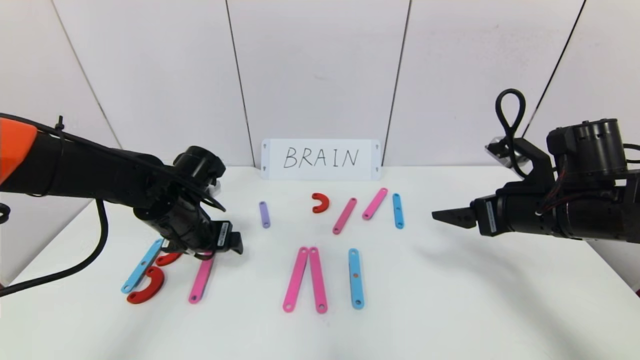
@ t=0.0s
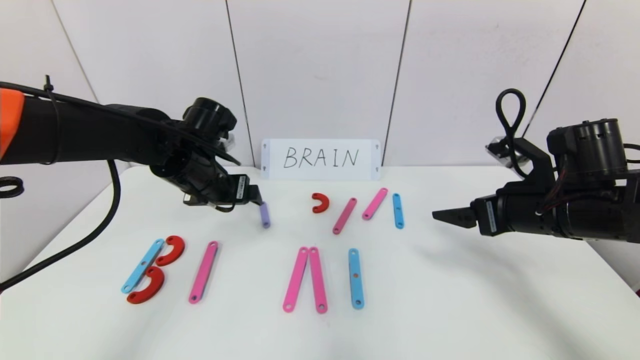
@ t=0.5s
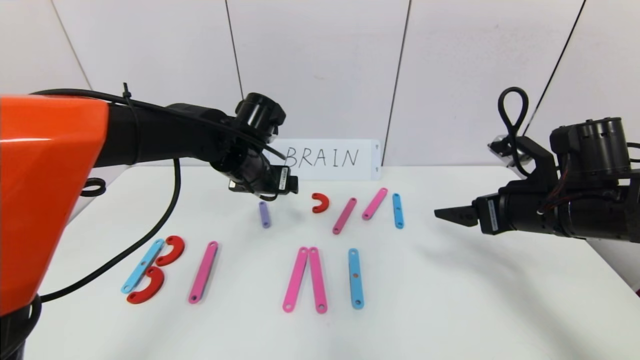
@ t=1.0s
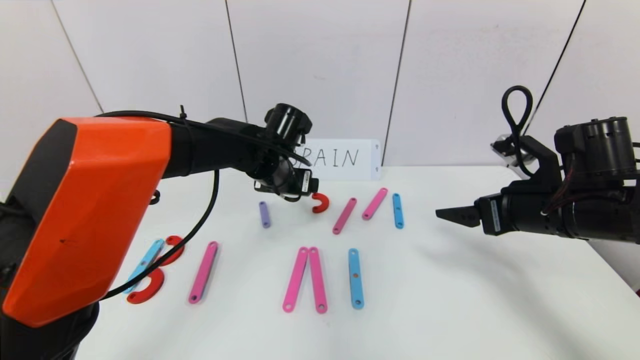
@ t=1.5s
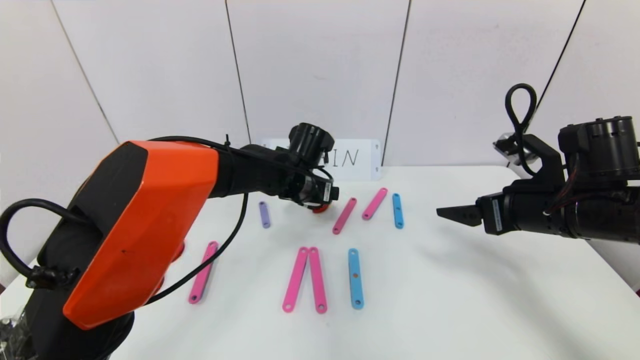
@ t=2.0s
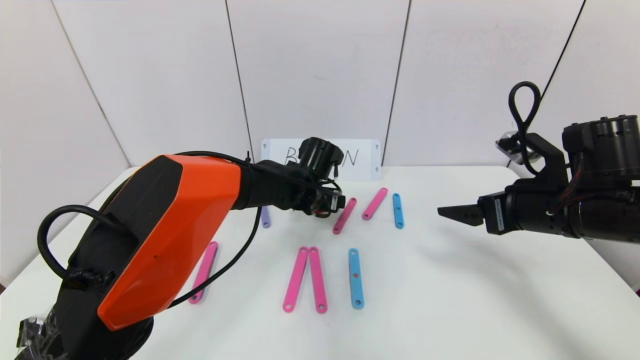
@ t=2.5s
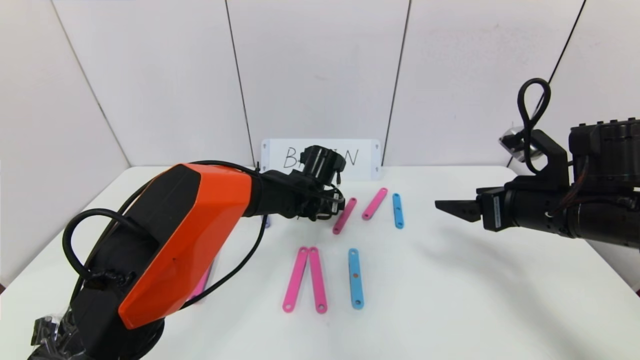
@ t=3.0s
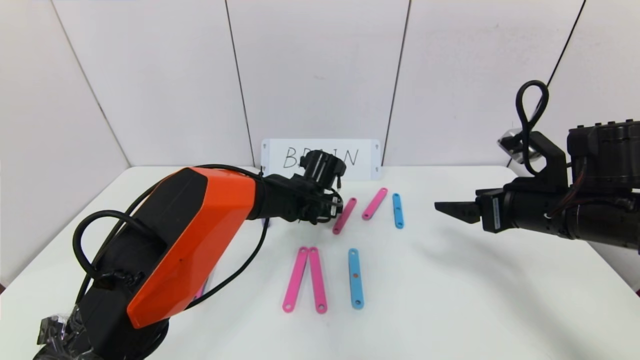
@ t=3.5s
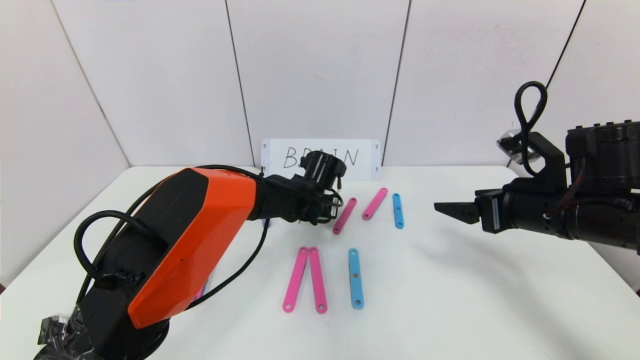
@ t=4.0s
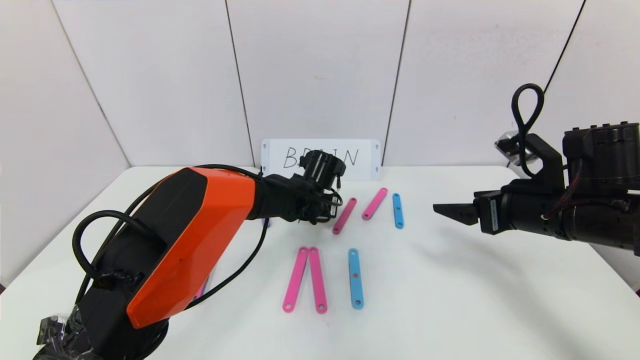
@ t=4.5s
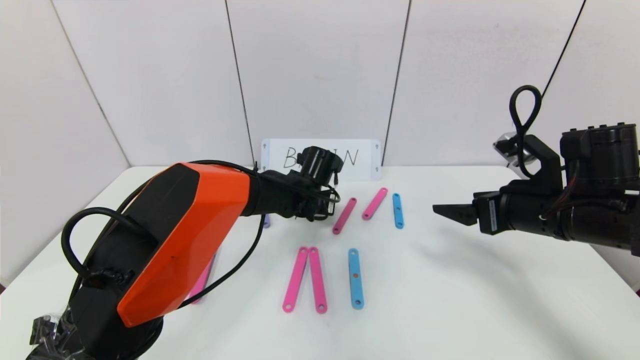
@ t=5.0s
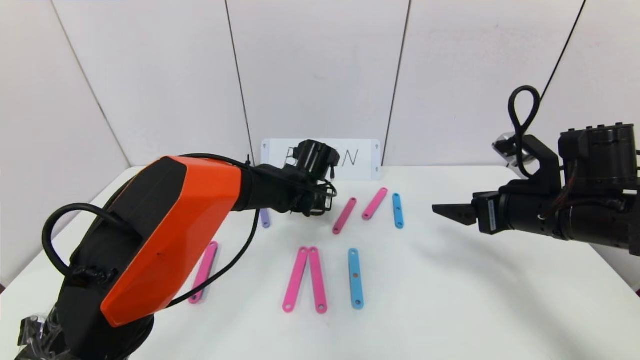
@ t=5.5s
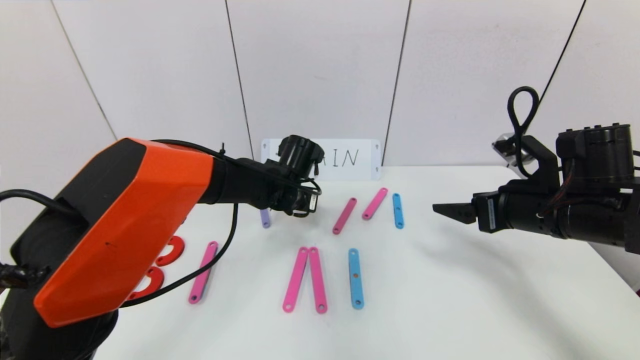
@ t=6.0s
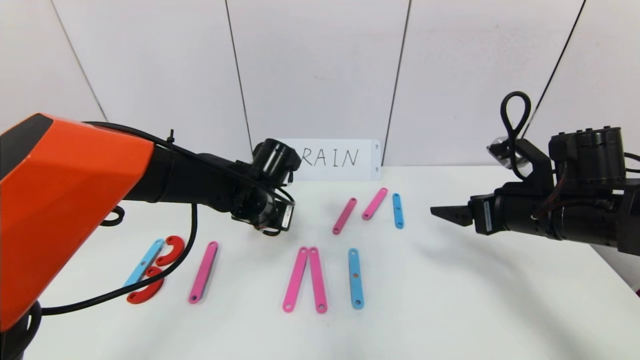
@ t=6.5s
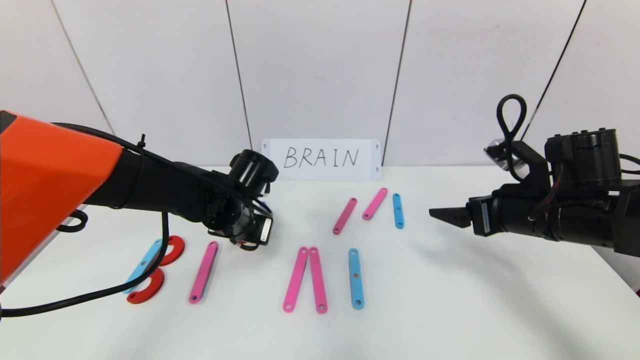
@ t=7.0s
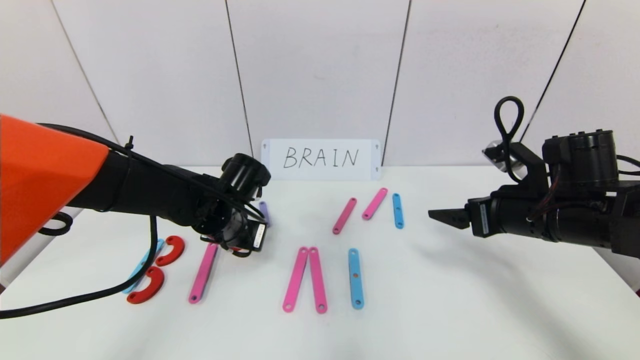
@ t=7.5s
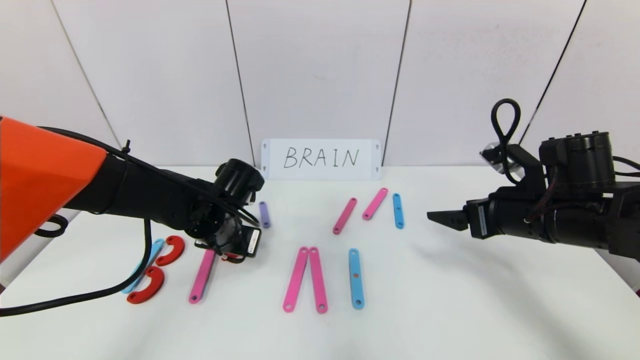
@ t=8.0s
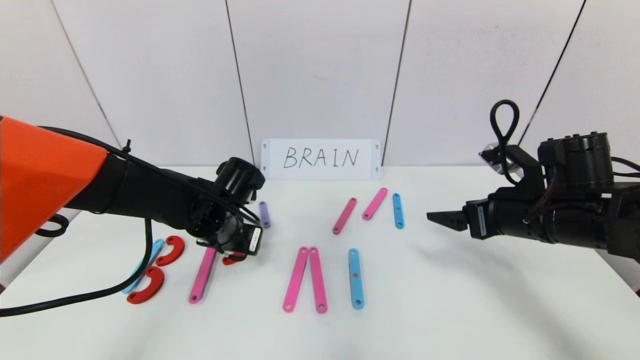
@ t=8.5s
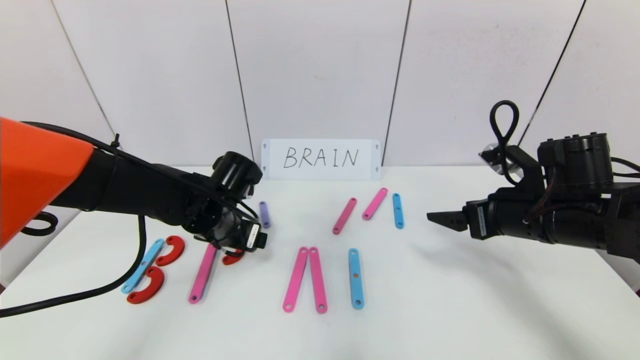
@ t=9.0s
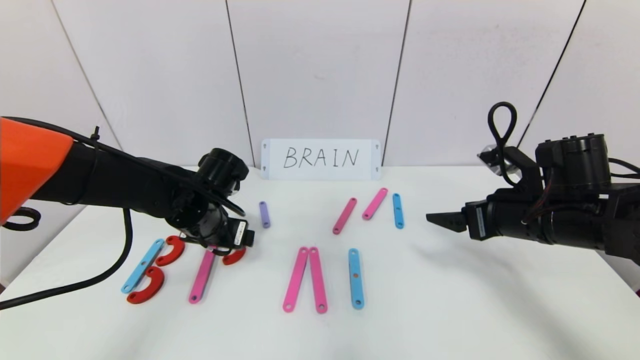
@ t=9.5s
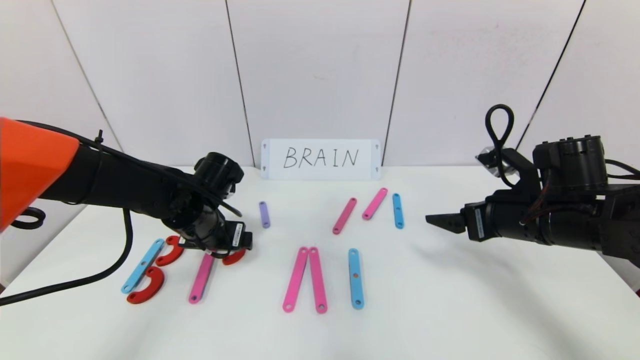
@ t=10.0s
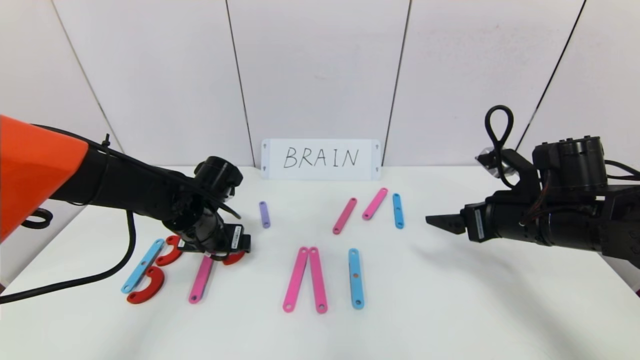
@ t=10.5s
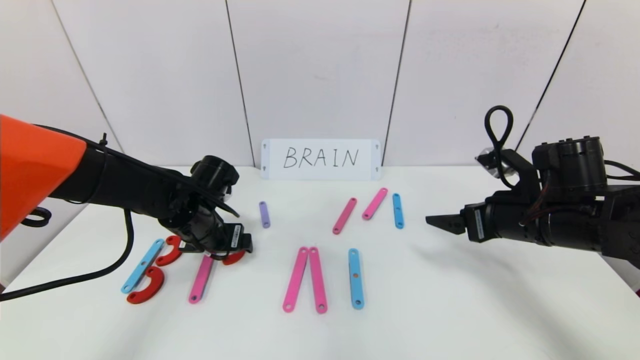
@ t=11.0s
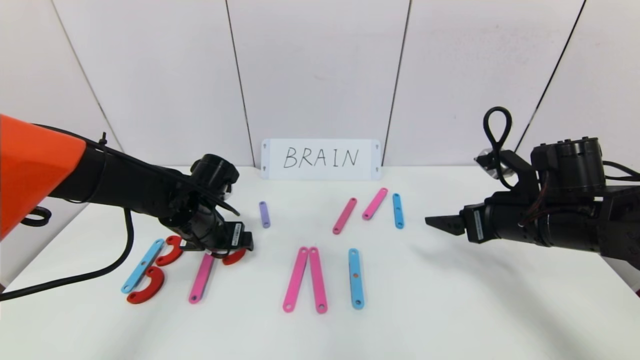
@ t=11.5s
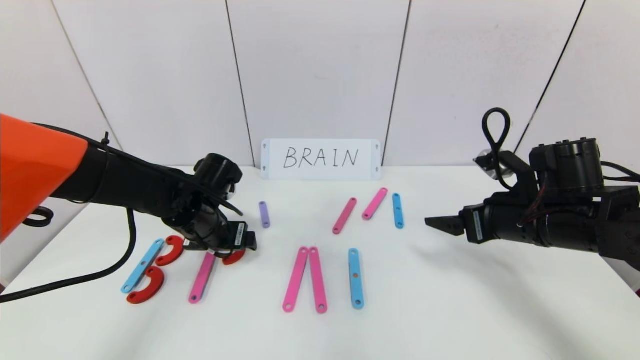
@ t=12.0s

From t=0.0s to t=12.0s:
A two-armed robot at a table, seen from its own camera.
Task of the whole recording: rearrange the word baai as brain.
From t=0.0s to t=2.0s: The left gripper goes some 20 cm to the right and forward.
From t=2.0s to t=4.0s: The left gripper moves downward, about 5 cm, and closes up.
From t=4.0s to t=6.0s: The left gripper shifts by about 5 cm.
From t=6.0s to t=8.0s: The left gripper shifts some 10 cm to the left and backward.
From t=8.0s to t=10.0s: The left gripper opens its fingers.
From t=10.0s to t=12.0s: Both grippers stay about where they are.

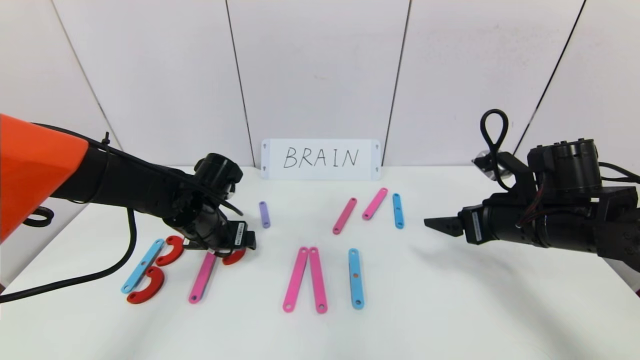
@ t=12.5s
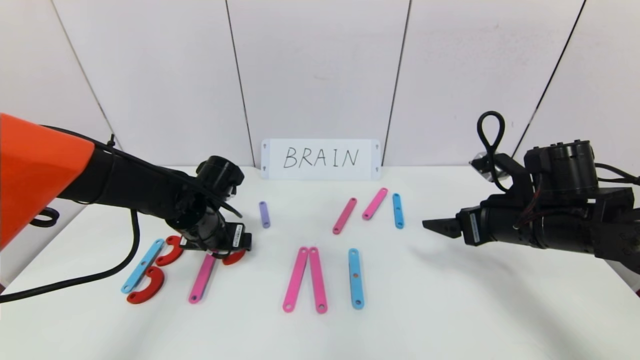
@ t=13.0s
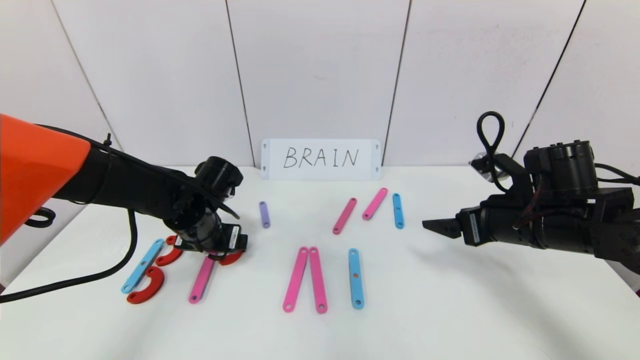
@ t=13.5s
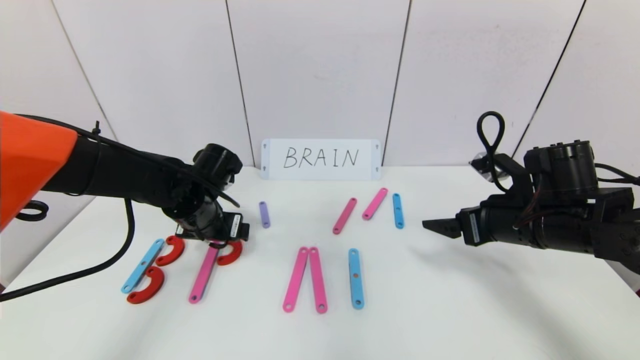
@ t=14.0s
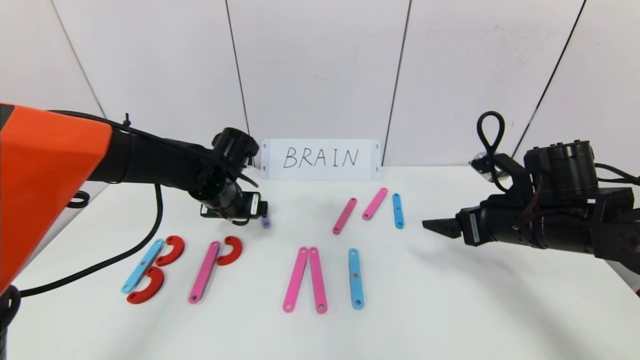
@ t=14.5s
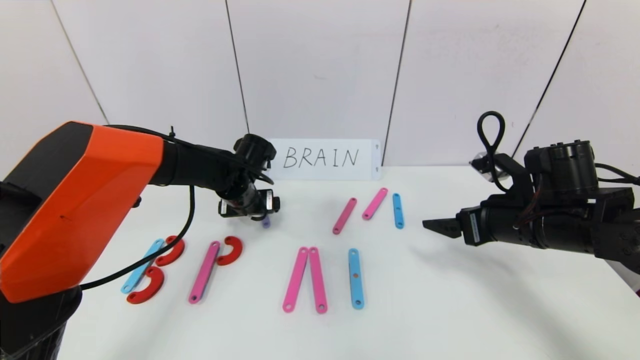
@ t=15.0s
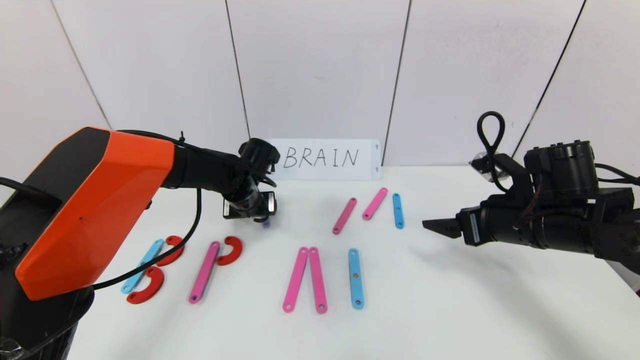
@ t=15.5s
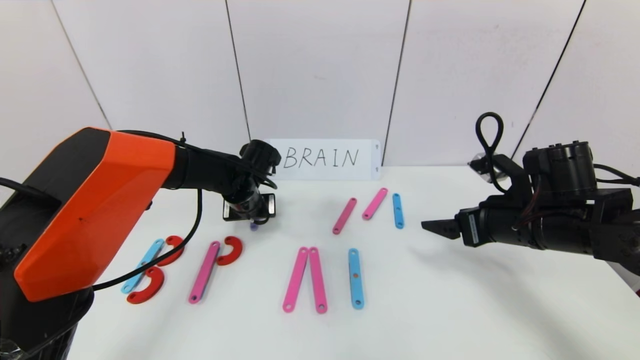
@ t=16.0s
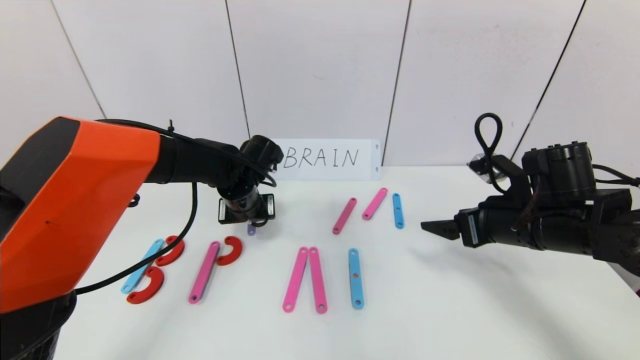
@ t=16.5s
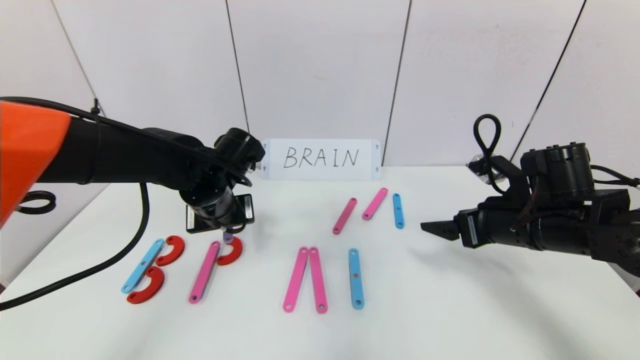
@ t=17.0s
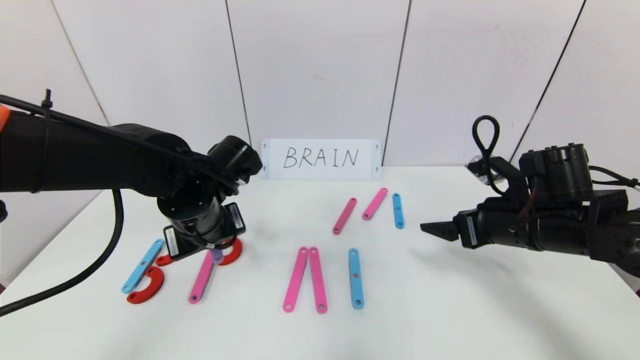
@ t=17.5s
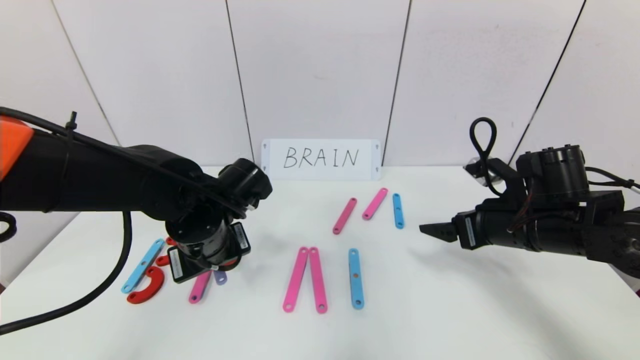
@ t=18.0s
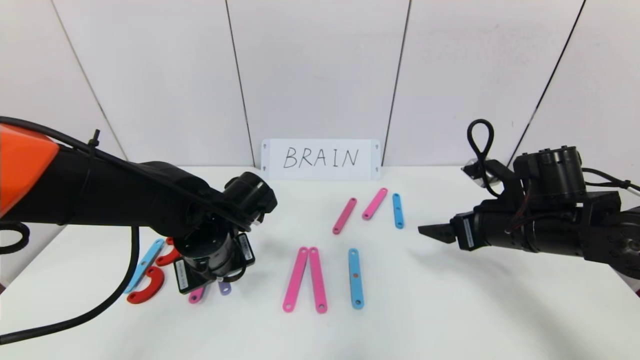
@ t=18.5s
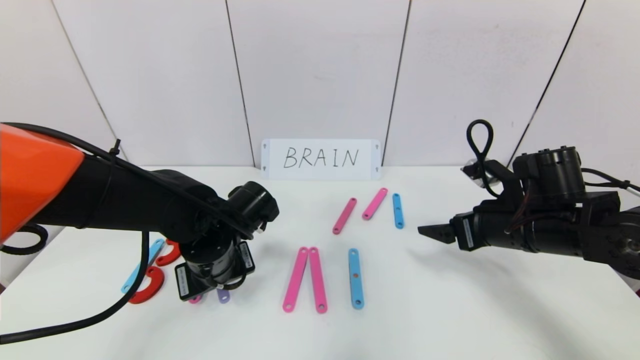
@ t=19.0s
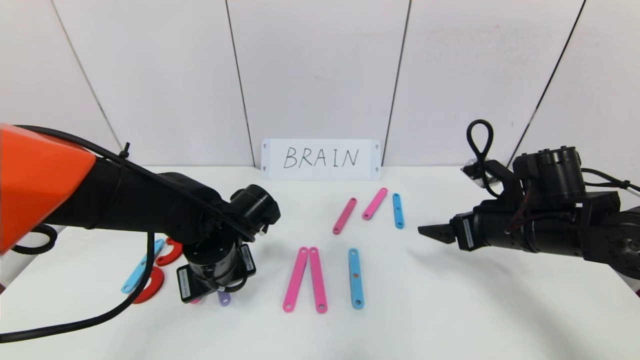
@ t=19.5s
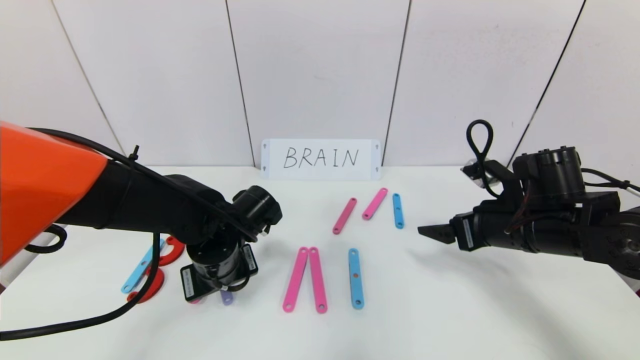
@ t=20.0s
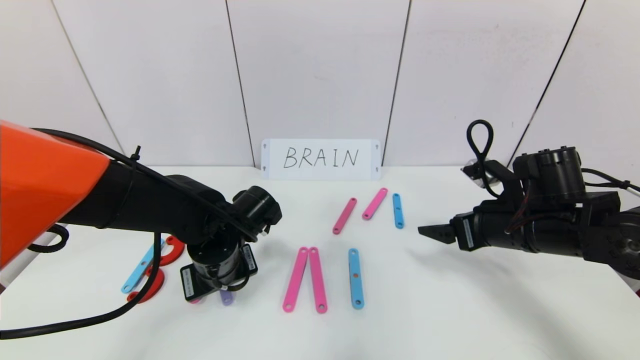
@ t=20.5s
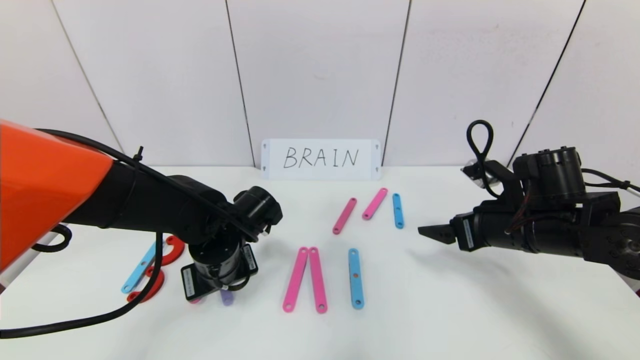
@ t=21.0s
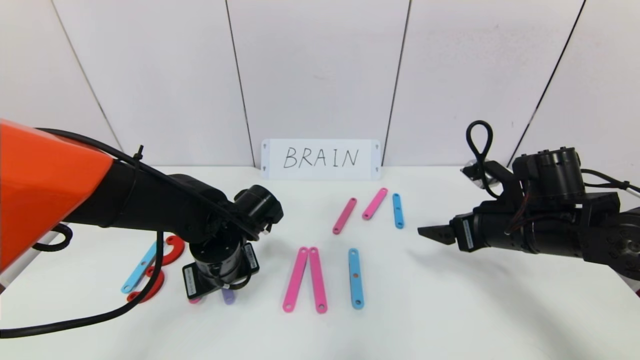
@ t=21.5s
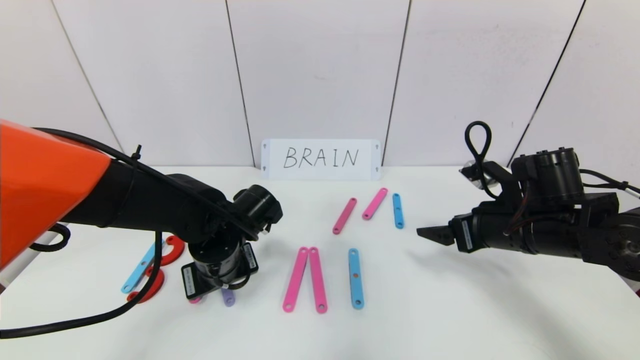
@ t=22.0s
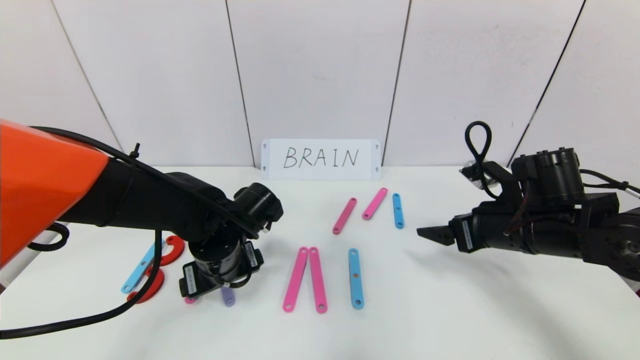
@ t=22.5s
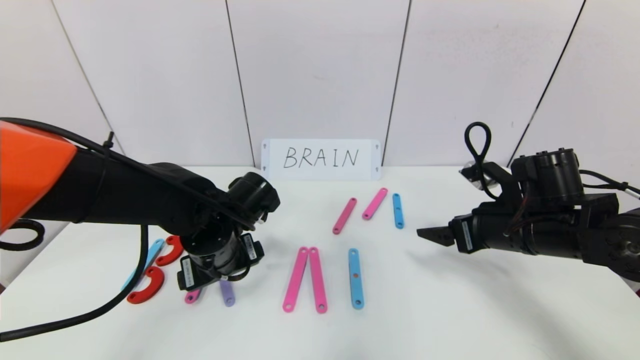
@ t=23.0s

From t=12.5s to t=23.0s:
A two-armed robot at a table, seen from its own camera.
Task of the whole recording: rearrange the word baai as brain.
Step, from t=12.5s to t=22.0s: Place the character R between first character B and third character A.
From t=12.5s to t=14.5s: The left gripper changes place by approximately 5 cm.
From t=14.5s to t=16.5s: The left gripper closes.
From t=16.5s to t=19.0s: The left gripper moves backward, approximately 10 cm.
From t=19.0s to t=21.0s: The grippers move only a little.
From t=21.0s to t=23.0s: The left gripper opens.
